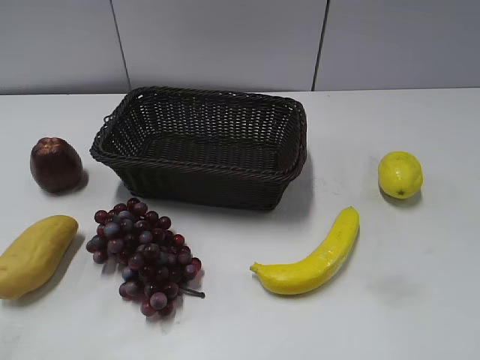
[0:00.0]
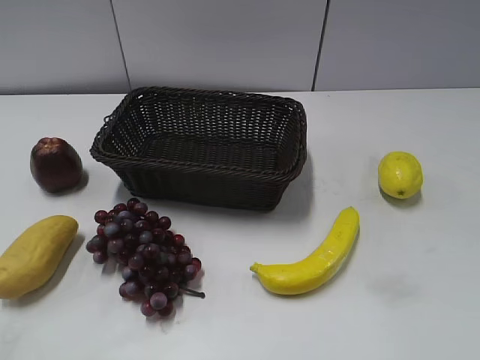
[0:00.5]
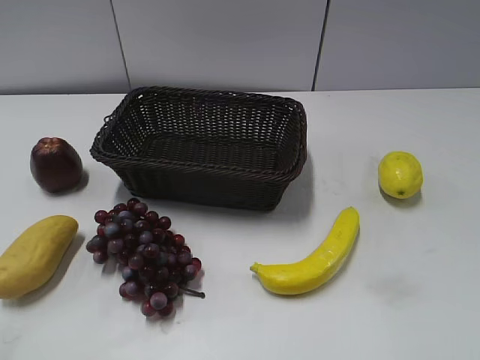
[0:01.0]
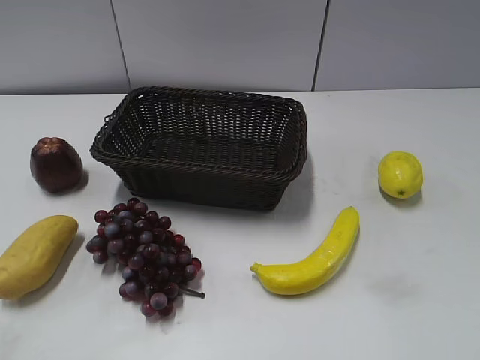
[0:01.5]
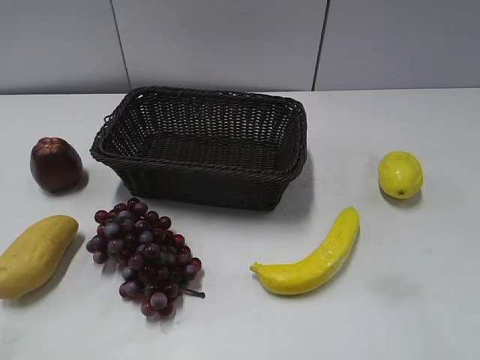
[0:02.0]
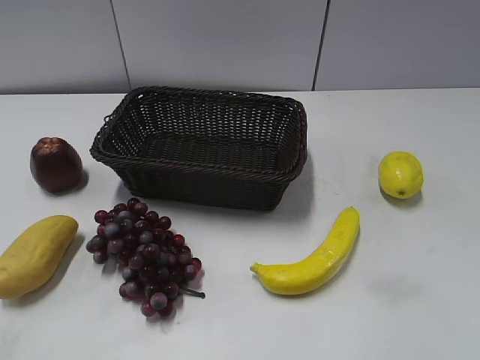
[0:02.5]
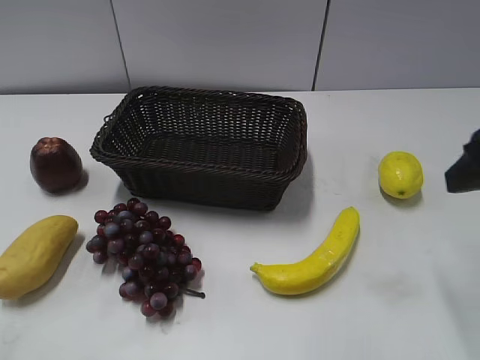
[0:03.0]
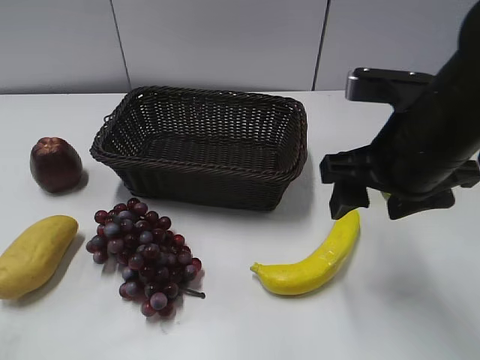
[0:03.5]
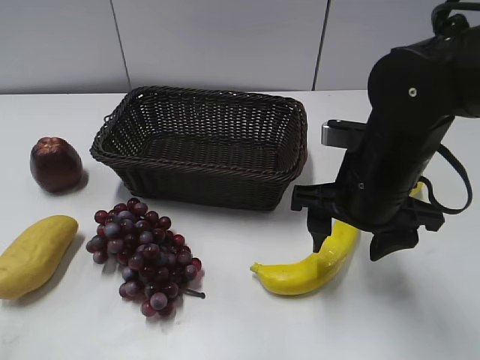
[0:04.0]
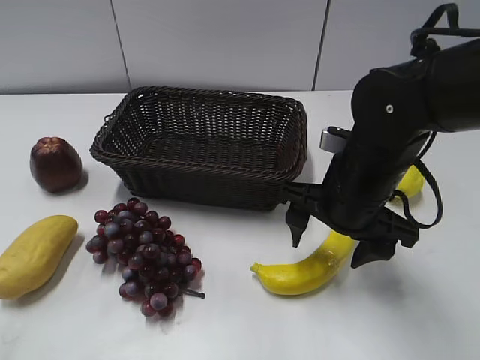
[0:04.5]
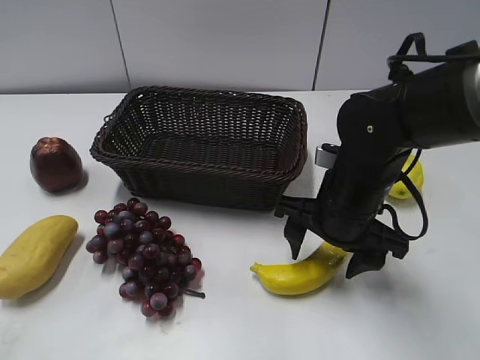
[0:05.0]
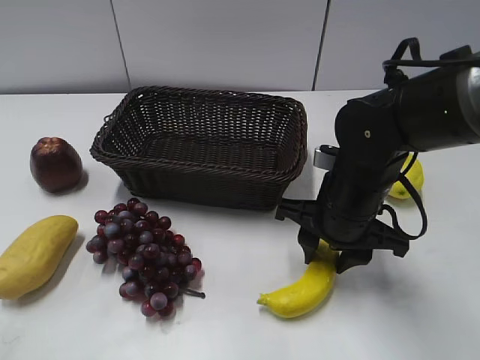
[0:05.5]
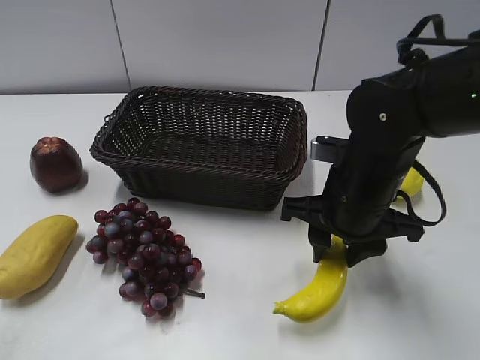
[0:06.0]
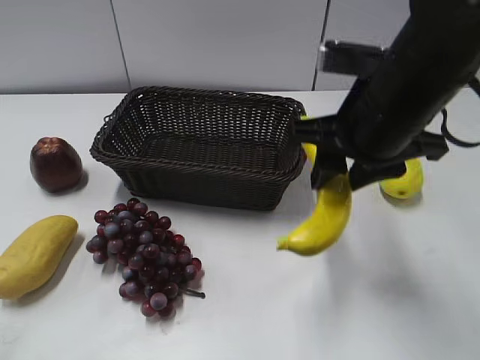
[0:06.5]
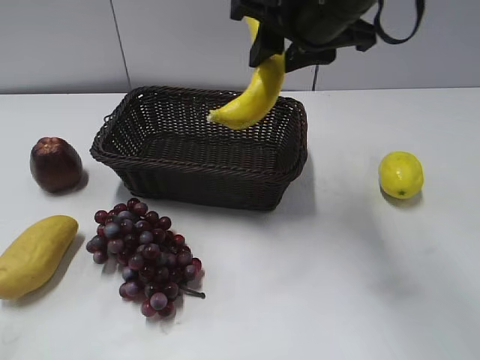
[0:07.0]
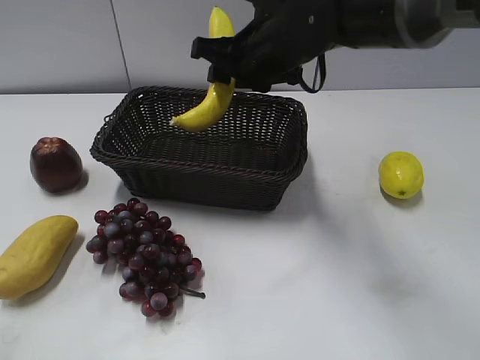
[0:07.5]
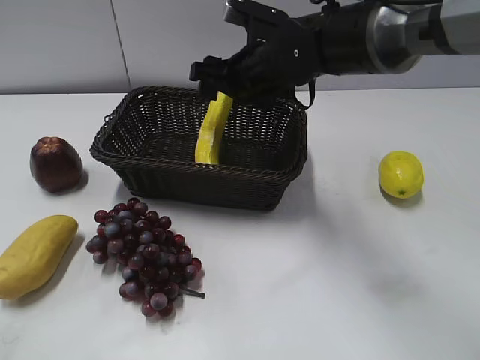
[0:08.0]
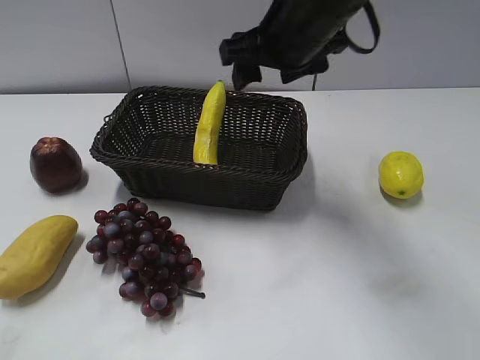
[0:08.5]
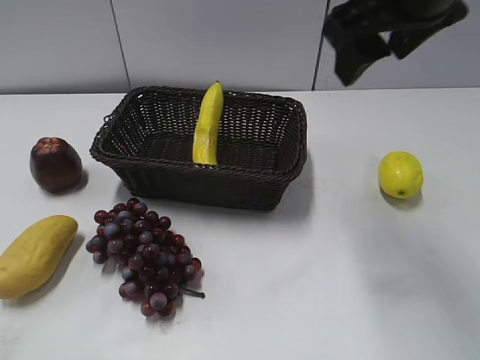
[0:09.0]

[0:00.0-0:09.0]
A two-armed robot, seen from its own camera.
Step, 0:03.0 to 0:05.0: Grasp the banana with right gripper.
Step, 0:06.0 to 0:08.0: Place the banana in the basket with right gripper.
0:02.0 to 0:04.5: The right gripper goes about 30 cm forward, to the left and downward.
0:04.5 to 0:07.0: The right gripper is displaced upward and forward by about 15 cm, and closes its fingers.
0:07.0 to 0:09.0: The right gripper moves to the right, roughly 5 cm, goes downward and returns, about 10 cm each way, and opens up.

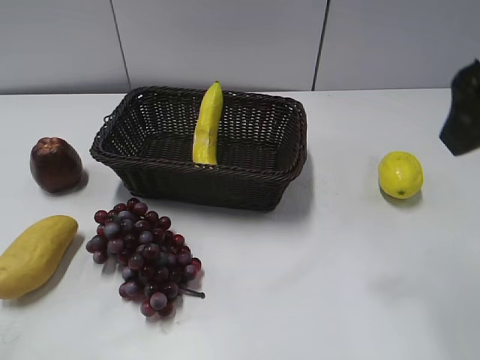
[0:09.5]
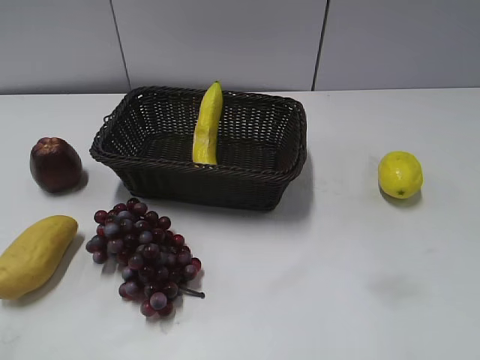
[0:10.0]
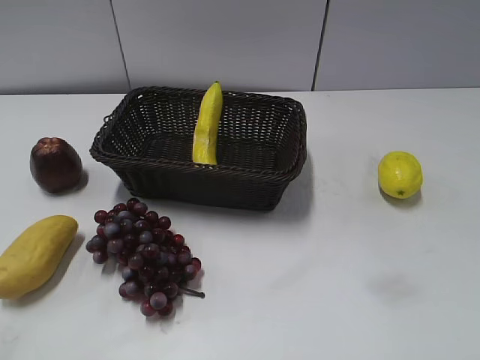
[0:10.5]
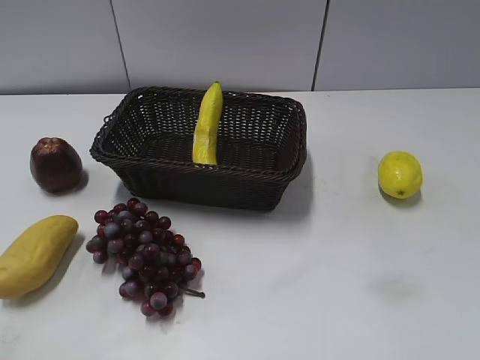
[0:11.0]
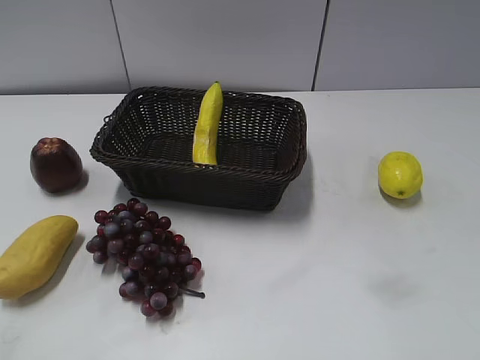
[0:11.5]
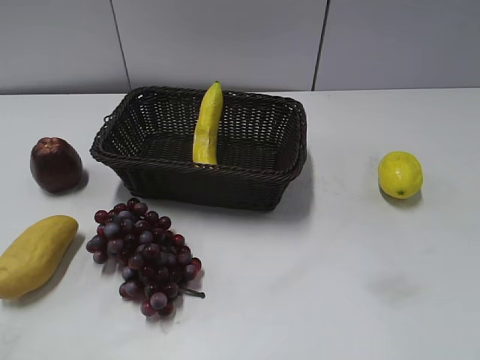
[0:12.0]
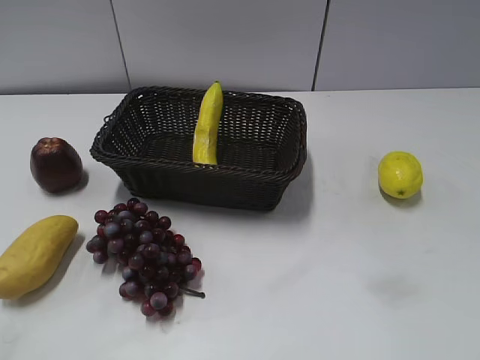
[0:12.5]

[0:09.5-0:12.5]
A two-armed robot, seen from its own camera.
0:09.5 to 0:11.0: The right gripper heads backward and to the right, covering about 20 cm.
